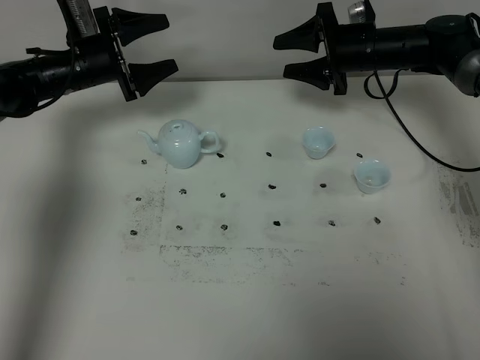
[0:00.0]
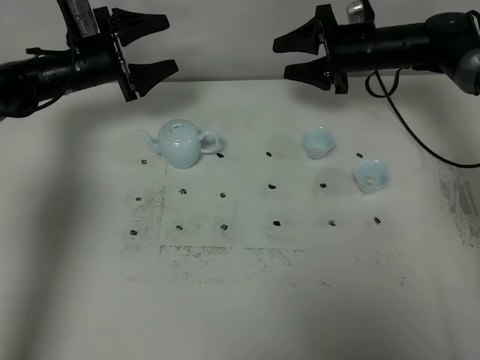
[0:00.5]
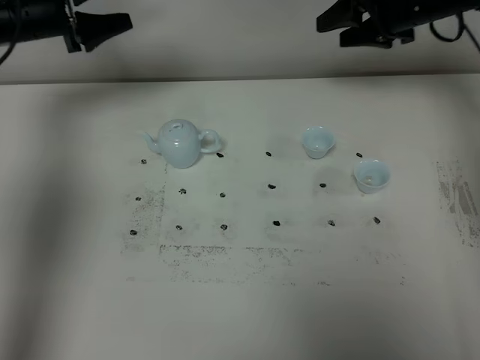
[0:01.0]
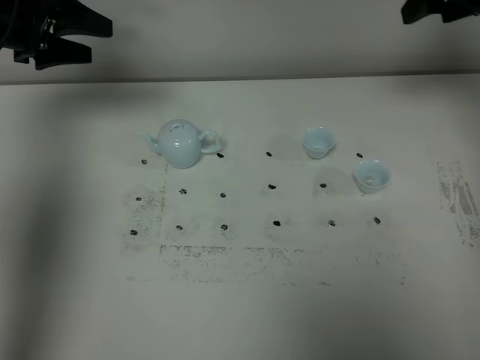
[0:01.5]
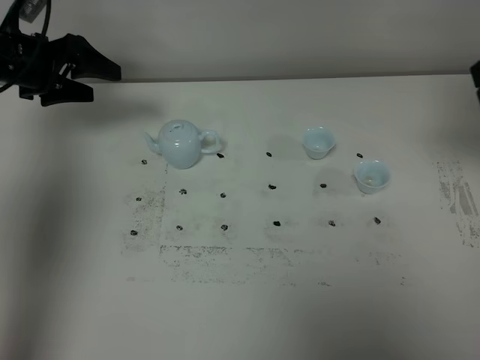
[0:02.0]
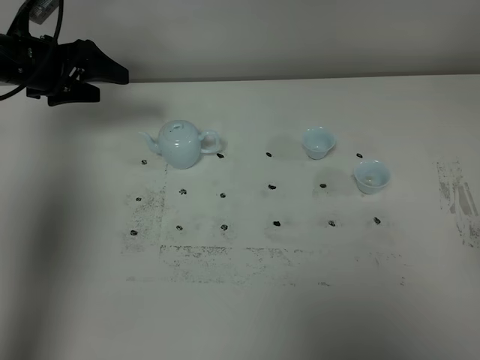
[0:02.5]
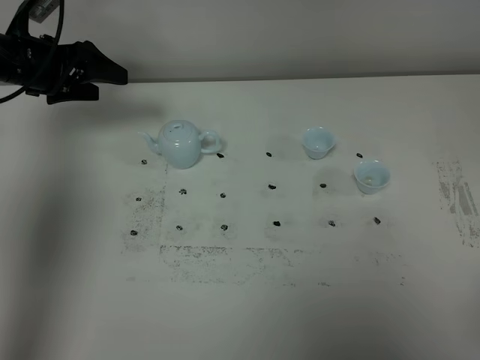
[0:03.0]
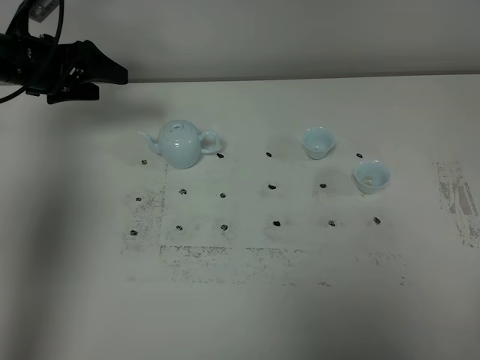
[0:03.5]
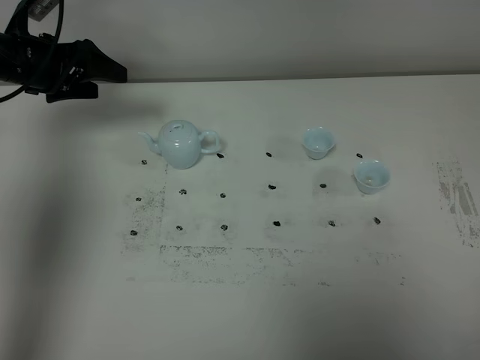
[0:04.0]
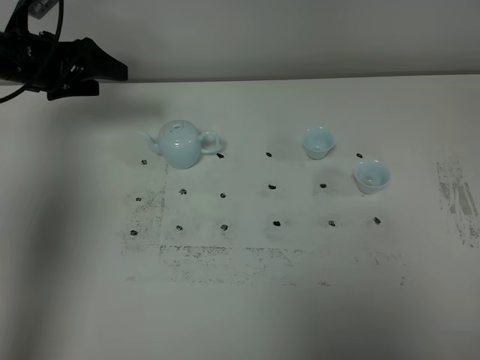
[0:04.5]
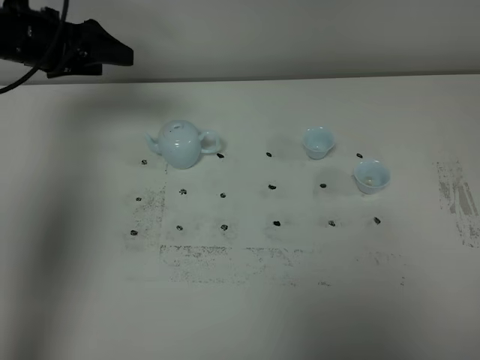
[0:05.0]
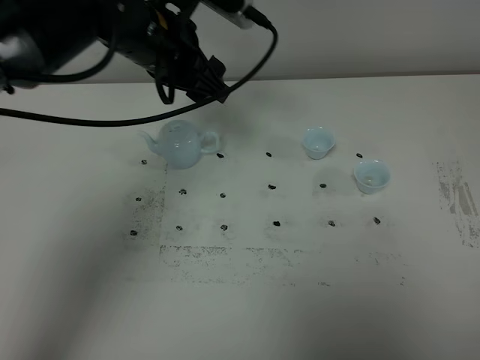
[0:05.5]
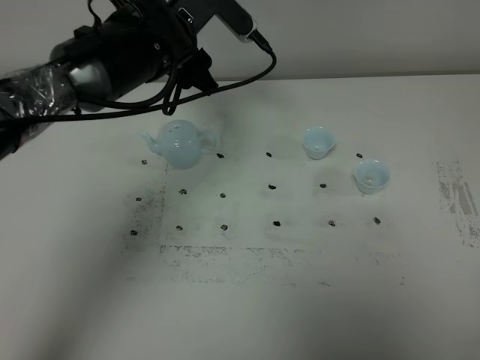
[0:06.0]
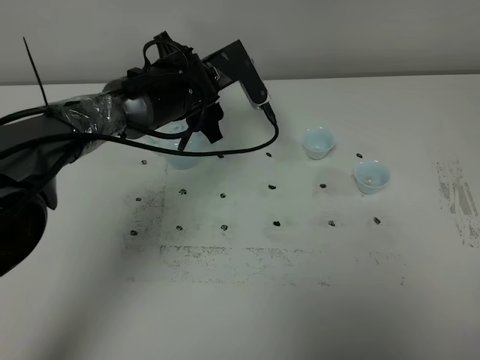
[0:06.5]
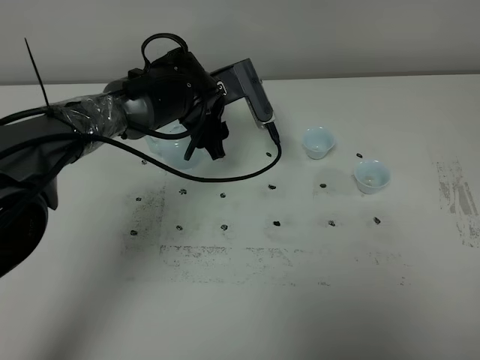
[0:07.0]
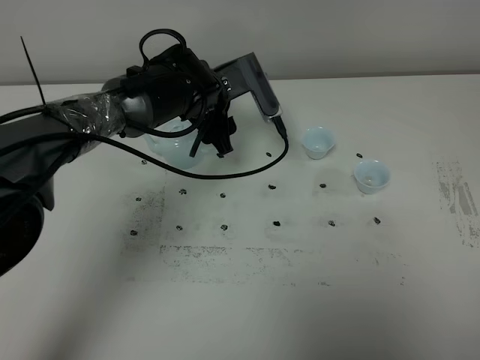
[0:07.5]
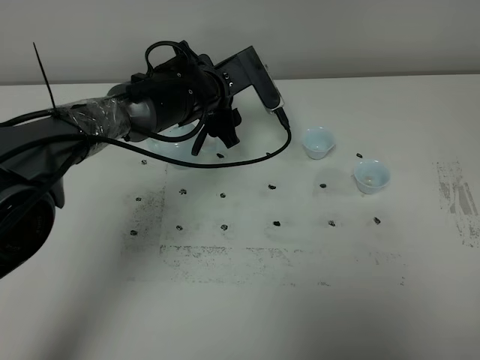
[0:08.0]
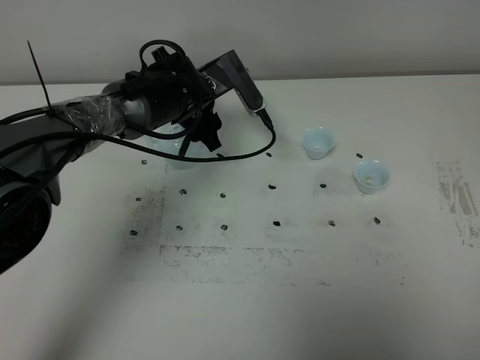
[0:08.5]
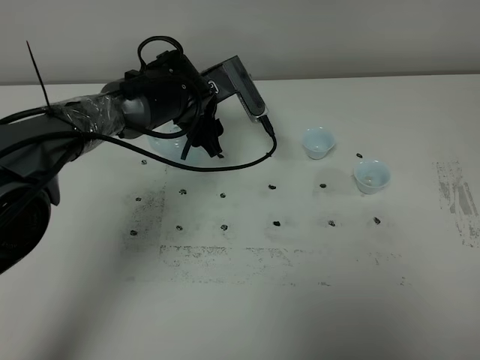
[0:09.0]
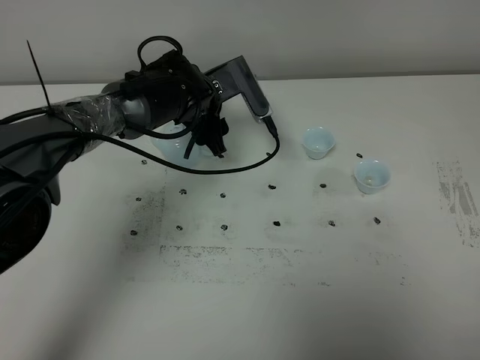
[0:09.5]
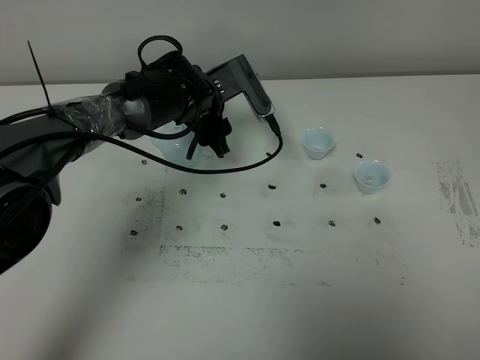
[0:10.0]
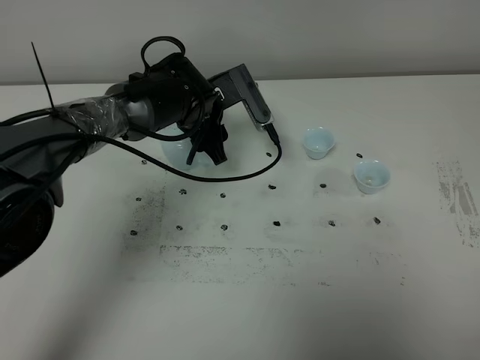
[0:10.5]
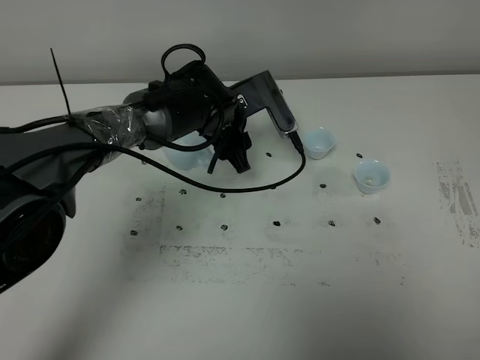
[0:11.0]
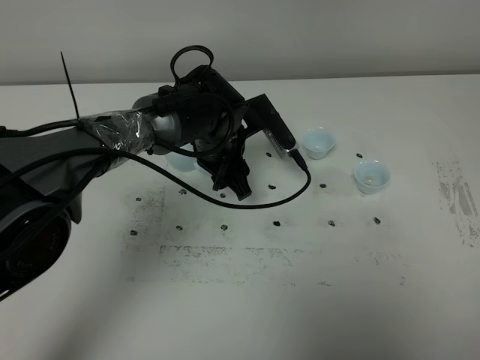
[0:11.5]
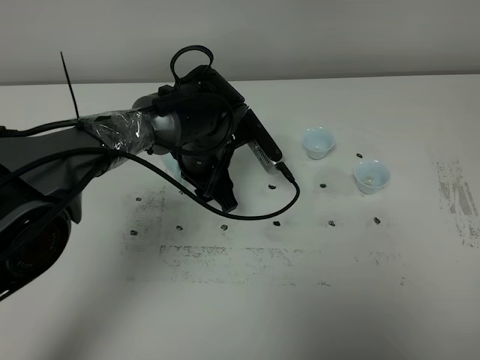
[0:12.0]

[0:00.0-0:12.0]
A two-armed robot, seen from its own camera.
Task of the whole recording: grasp the blue porcelain teapot and pour the tea into the two blue porcelain teacups one by one, put the blue porcelain teapot back in its original place.
0:00.0 to 0:02.0: The right gripper is displaced backward and upward by roughly 30 cm. Meanwhile the left gripper moves upward, to the left and backward, roughly 10 cm.
0:02.0 to 0:04.0: The right gripper heads backward, covering roughly 30 cm, and closes up.
0:04.0 to 0:06.0: The left gripper shifts about 20 cm to the right.
0:06.0 to 0:08.0: The left gripper is displaced downward by roughly 10 cm.
0:08.0 to 0:10.0: The grippers make only small movements.
0:10.0 to 0:12.0: The left gripper goes approximately 5 cm backward.

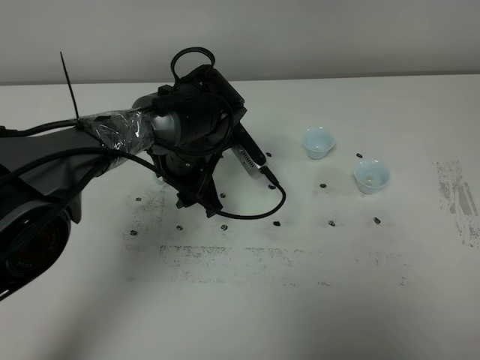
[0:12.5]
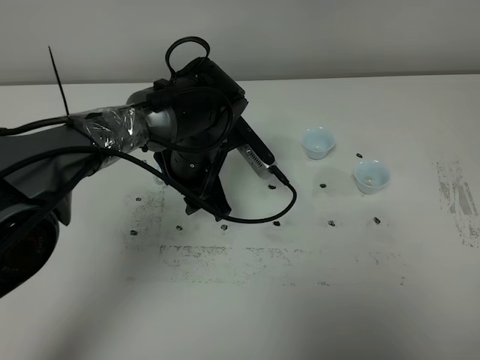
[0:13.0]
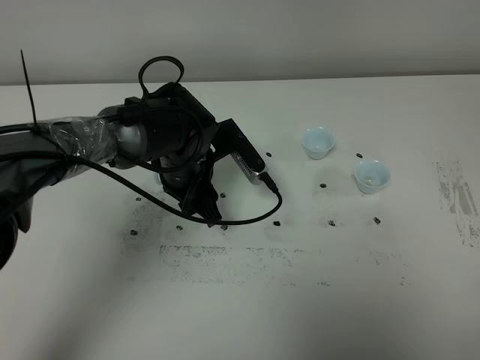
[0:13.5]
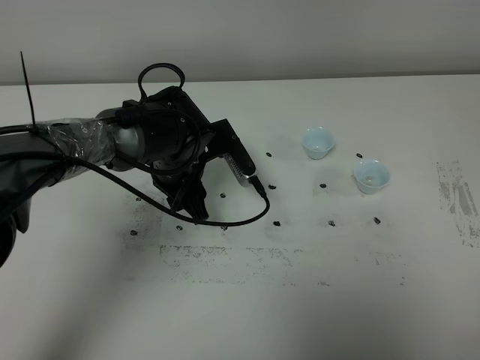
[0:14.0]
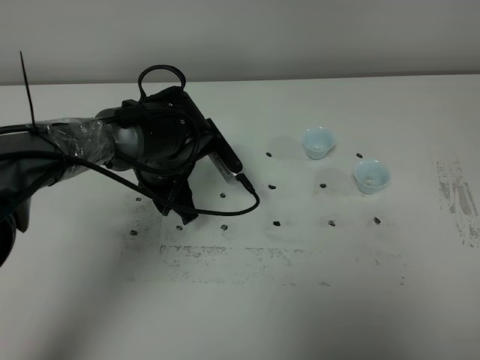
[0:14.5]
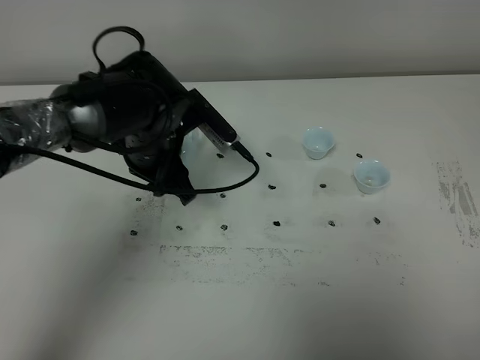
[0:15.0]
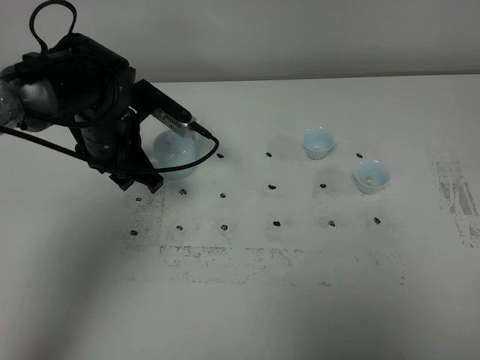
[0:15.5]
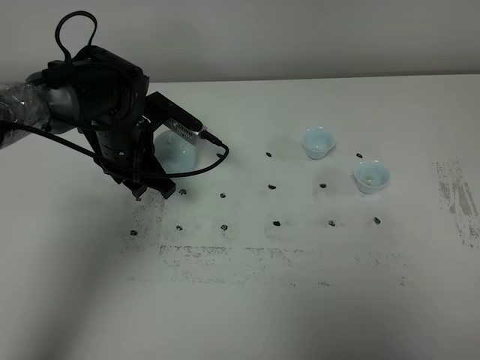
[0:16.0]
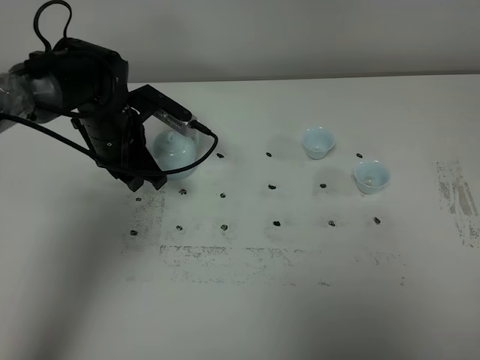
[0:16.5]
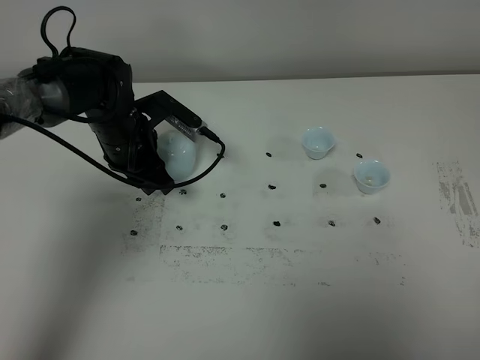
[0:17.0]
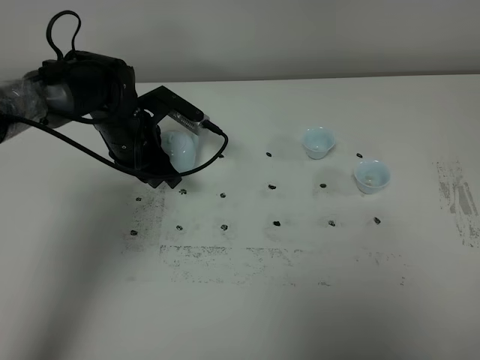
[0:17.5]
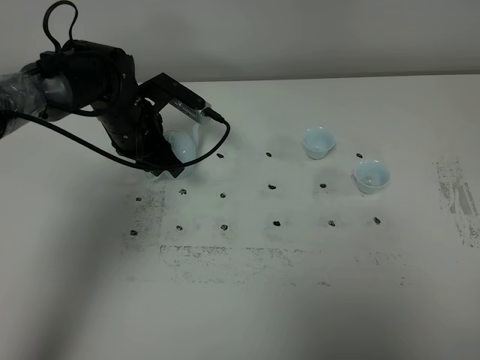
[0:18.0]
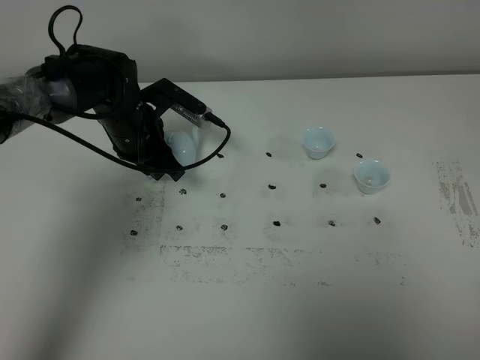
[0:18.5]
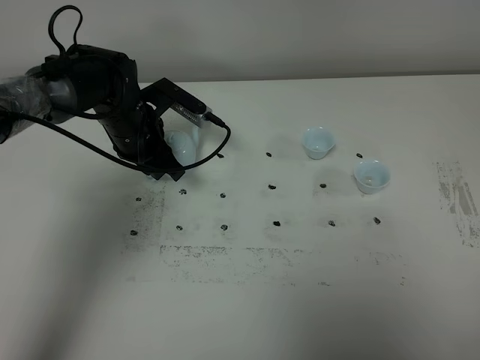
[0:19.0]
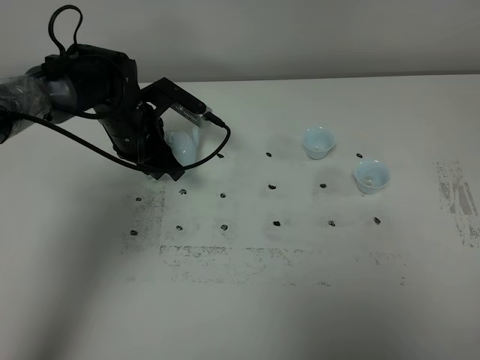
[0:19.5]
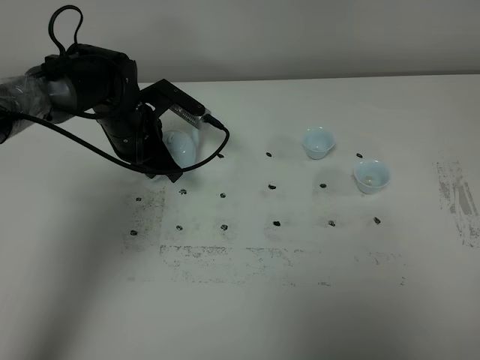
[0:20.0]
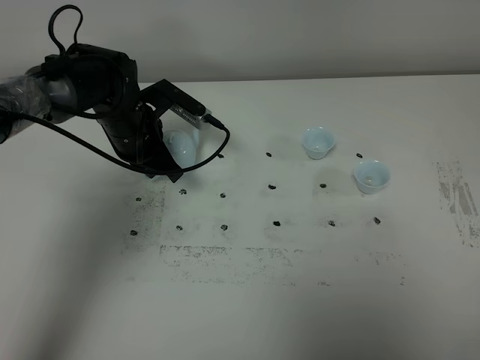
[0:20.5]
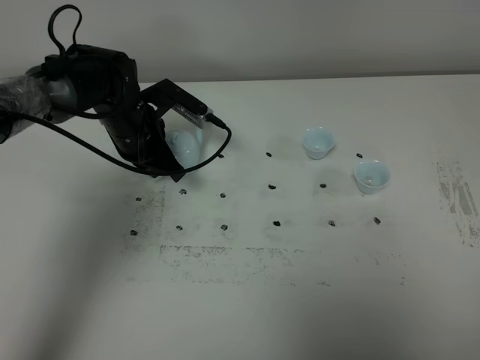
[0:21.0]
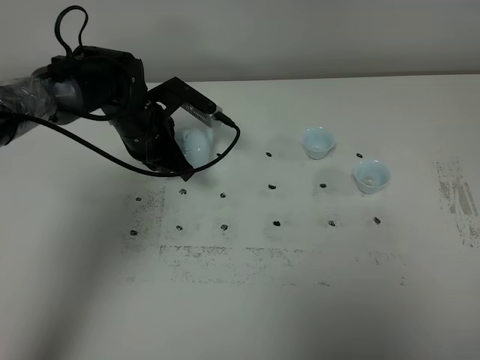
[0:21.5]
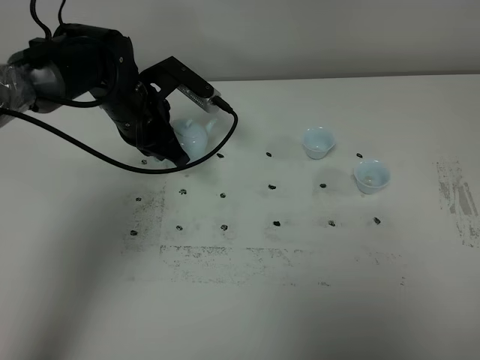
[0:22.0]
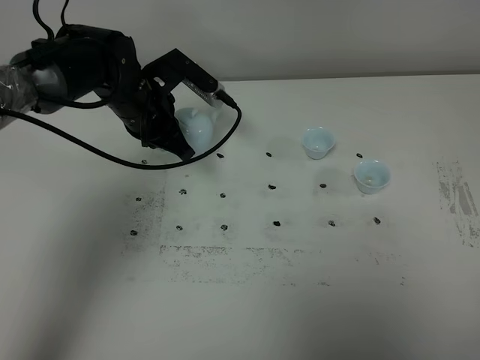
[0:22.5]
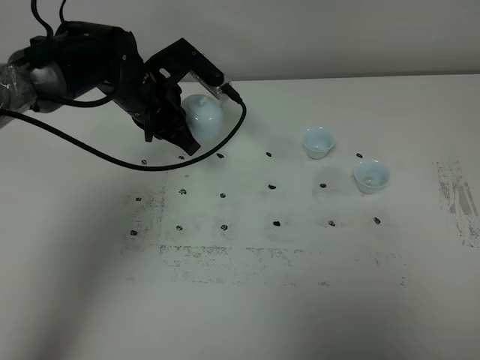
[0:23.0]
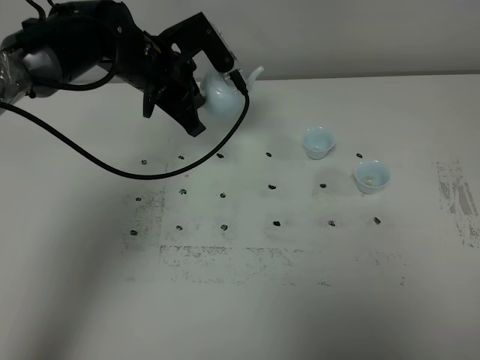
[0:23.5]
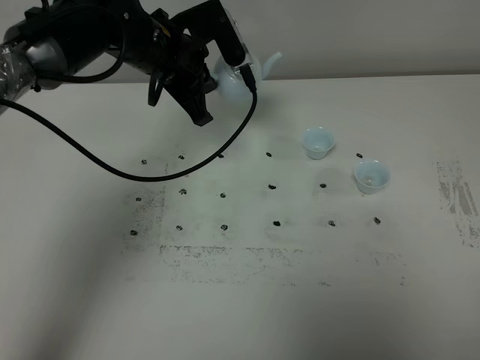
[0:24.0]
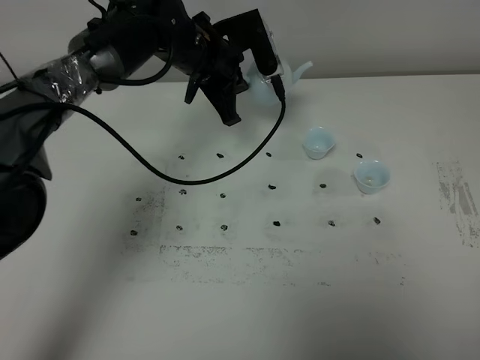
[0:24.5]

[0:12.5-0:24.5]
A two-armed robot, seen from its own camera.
Task of the whole recording: grasp the blue porcelain teapot and pour the tea into the two blue porcelain teacups one by one, put the blue porcelain teapot back in its original place.
Step, 0:12.5 to 0:22.5: Pick up the teapot with the left gripper.
0:12.5 to 0:14.5: There are only small adjustments of the grippers.
0:14.5 to 0:16.5: The left gripper goes roughly 10 cm to the left.
0:16.5 to 0:18.5: The grippers stay close to where they were, moving slightly.
0:18.5 to 0:20.5: The left gripper closes up.
0:20.5 to 0:22.5: There are only small adjustments of the grippers.
0:22.5 to 0:24.5: The left gripper heads to the right, covering about 10 cm.

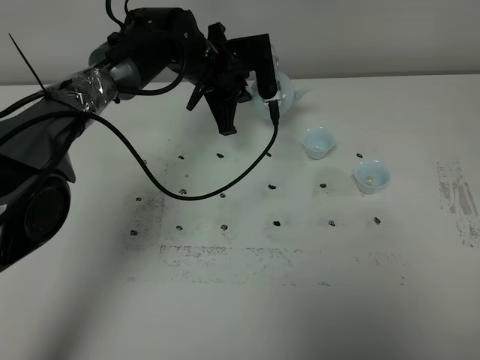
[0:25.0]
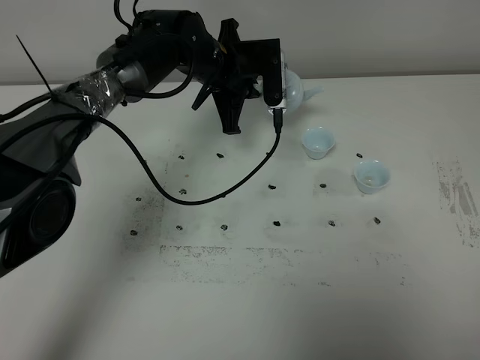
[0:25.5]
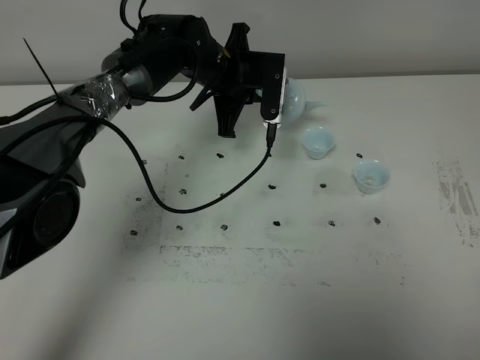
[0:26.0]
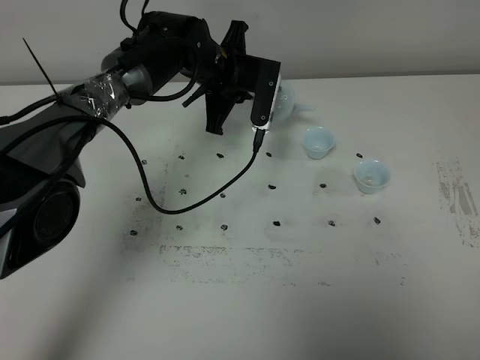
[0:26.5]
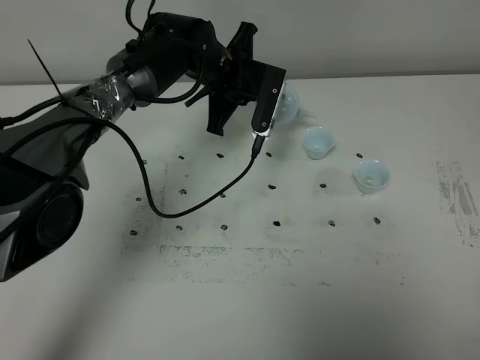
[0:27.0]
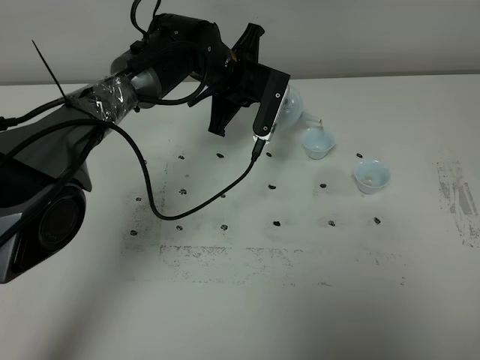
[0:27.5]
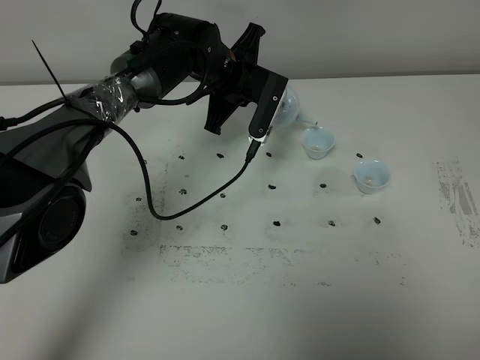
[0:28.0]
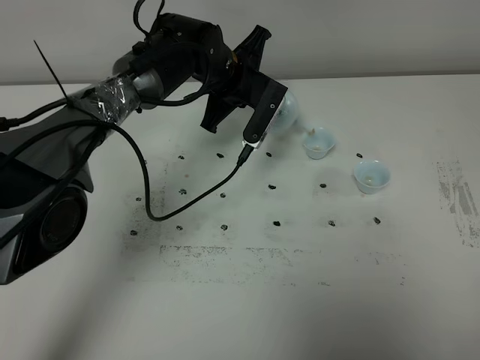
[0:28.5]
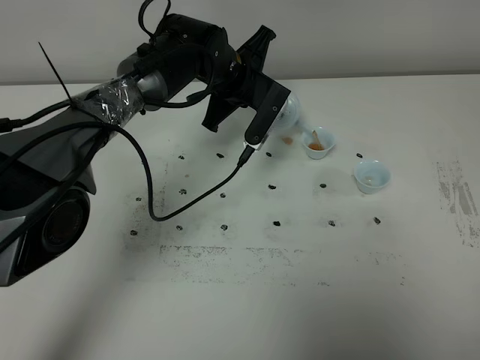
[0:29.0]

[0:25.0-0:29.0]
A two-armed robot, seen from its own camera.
Task of the whole recording: grasp the blue porcelain teapot and pour the tea into the two blue porcelain teacups one by one, put the blue porcelain teapot back in its original place.
0:27.0 to 0:29.0: There are only small adjustments of the grippers.
